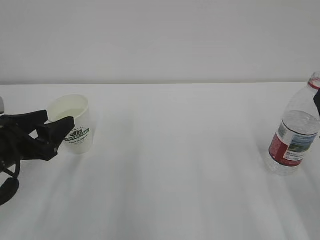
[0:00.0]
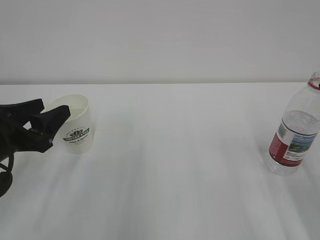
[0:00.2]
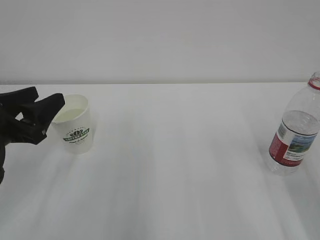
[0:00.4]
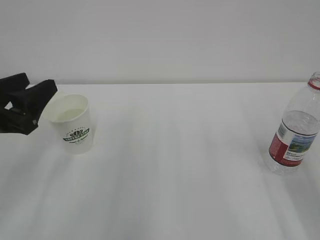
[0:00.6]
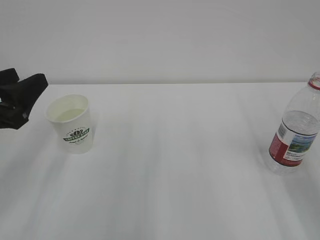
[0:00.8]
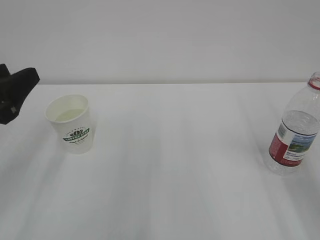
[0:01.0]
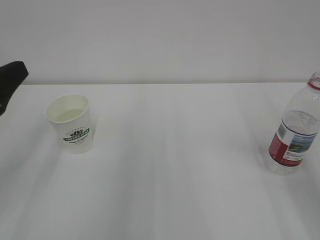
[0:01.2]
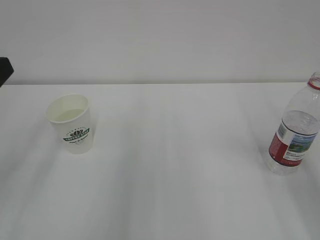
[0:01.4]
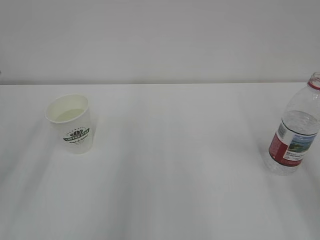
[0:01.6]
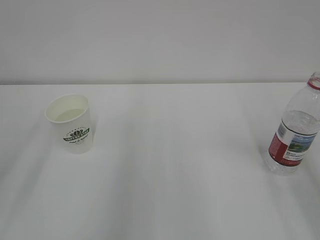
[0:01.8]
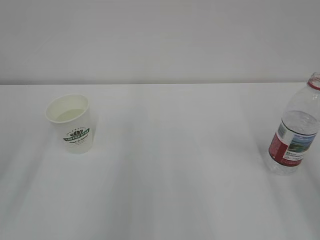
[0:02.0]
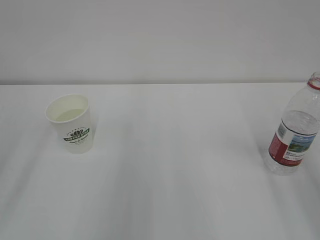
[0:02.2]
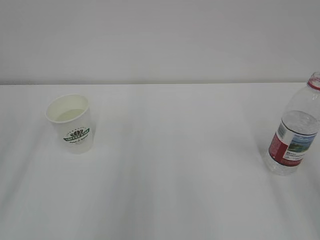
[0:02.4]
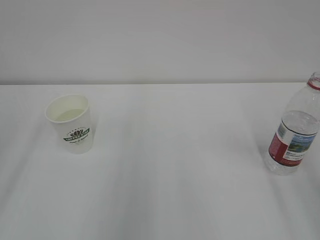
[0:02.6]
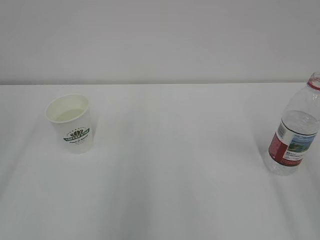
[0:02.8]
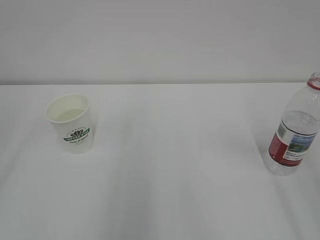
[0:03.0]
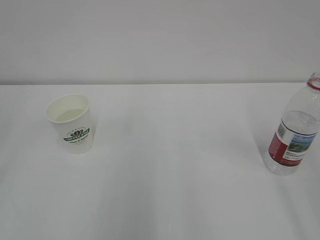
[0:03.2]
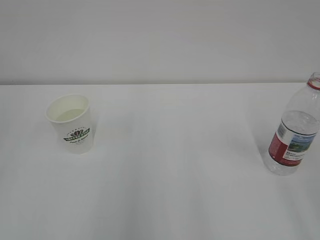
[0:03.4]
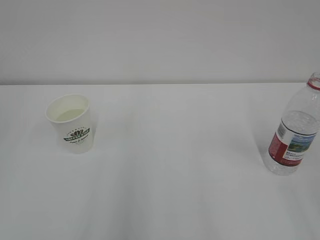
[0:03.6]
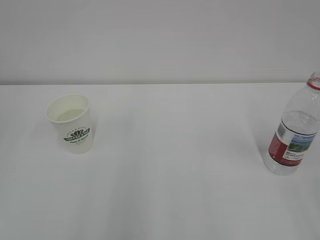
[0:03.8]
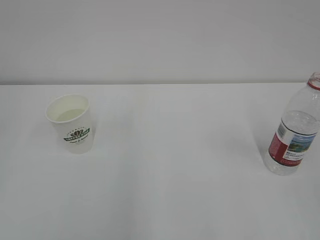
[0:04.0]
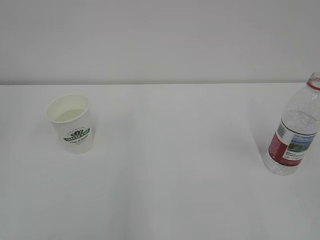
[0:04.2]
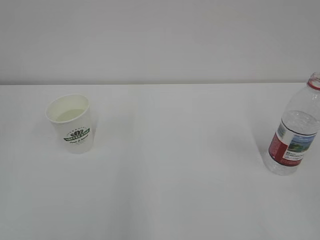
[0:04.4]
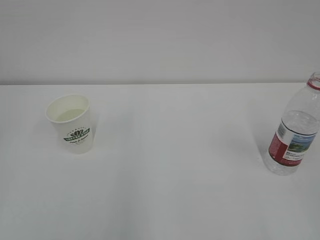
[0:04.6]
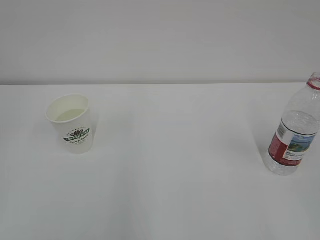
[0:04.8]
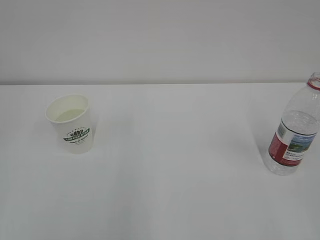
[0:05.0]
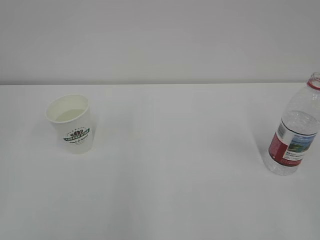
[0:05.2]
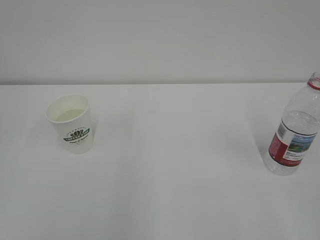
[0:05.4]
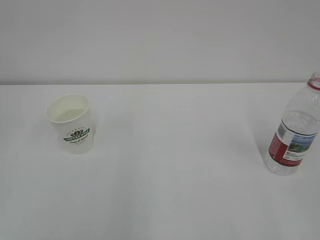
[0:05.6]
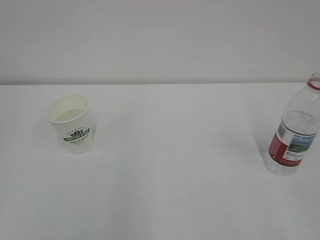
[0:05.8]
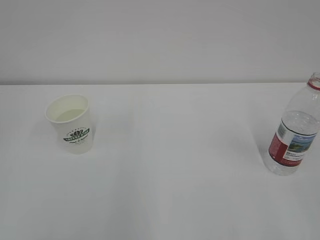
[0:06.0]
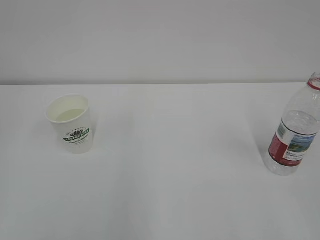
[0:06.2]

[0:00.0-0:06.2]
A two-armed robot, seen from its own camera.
0:00.0 to 0:01.6: The left gripper is displaced upward and backward by roughly 15 cm.
